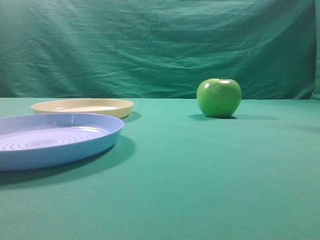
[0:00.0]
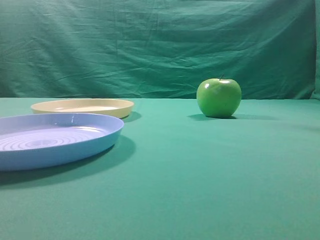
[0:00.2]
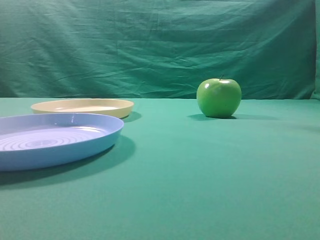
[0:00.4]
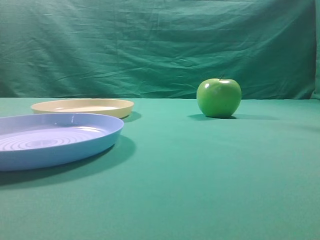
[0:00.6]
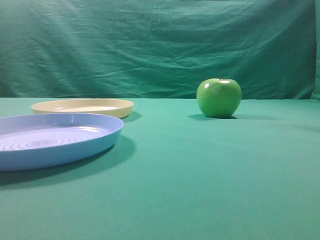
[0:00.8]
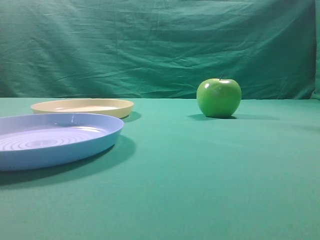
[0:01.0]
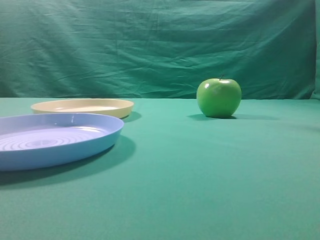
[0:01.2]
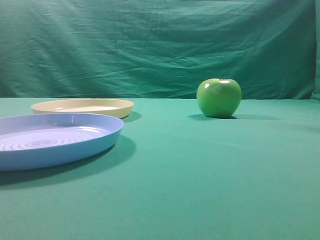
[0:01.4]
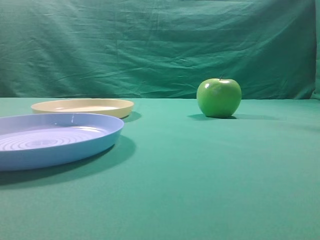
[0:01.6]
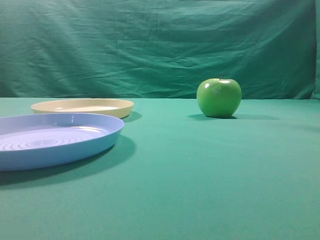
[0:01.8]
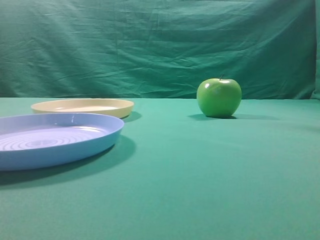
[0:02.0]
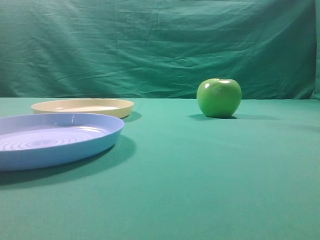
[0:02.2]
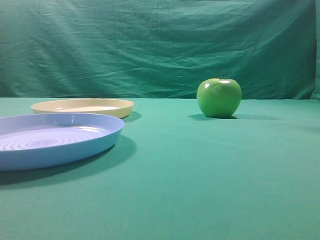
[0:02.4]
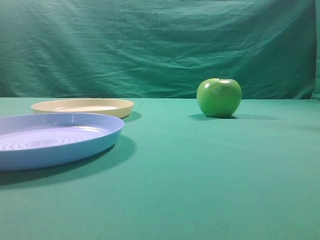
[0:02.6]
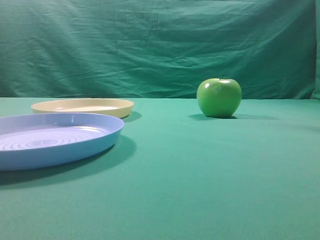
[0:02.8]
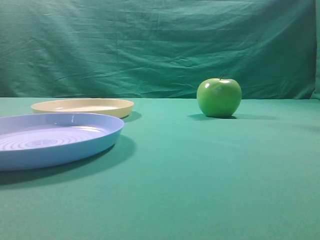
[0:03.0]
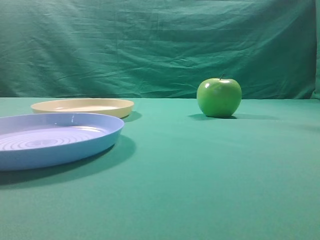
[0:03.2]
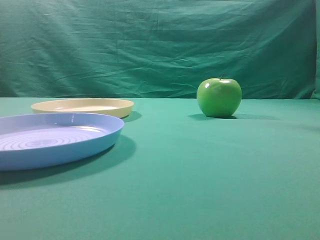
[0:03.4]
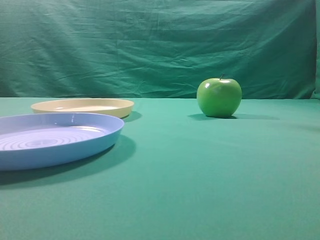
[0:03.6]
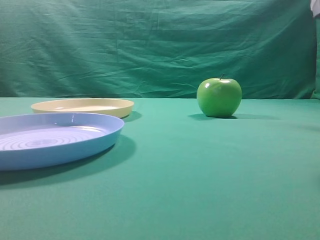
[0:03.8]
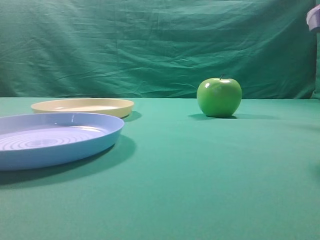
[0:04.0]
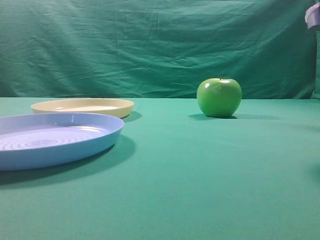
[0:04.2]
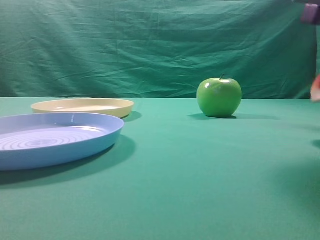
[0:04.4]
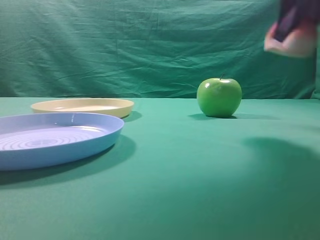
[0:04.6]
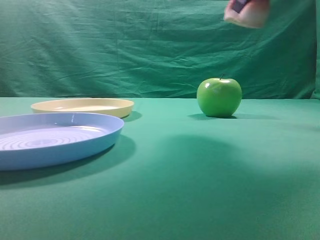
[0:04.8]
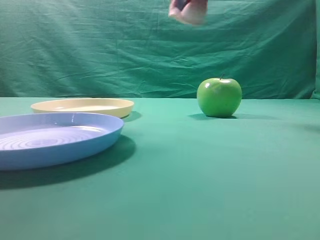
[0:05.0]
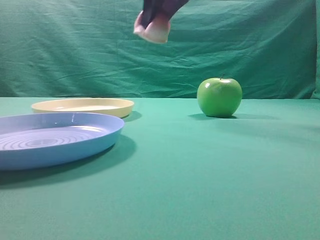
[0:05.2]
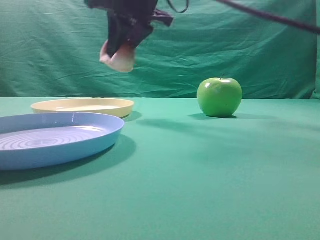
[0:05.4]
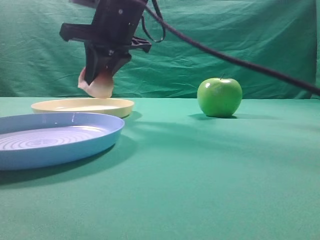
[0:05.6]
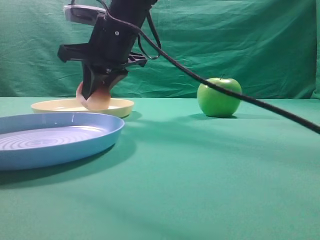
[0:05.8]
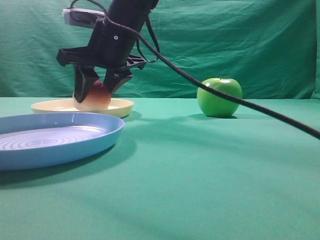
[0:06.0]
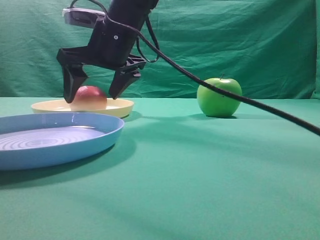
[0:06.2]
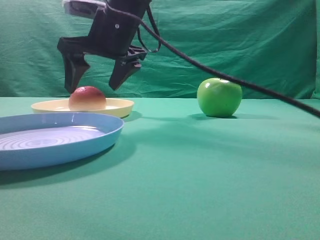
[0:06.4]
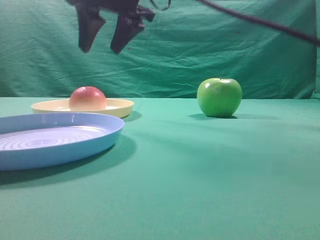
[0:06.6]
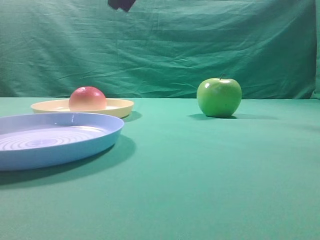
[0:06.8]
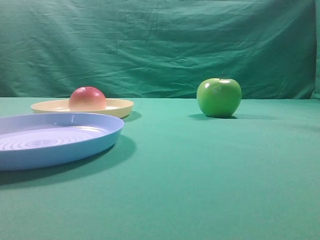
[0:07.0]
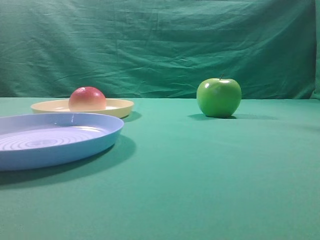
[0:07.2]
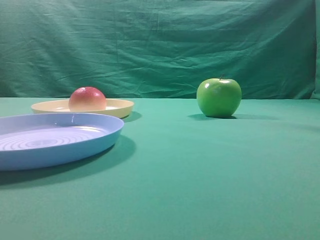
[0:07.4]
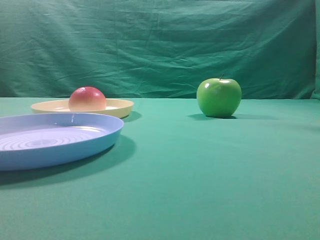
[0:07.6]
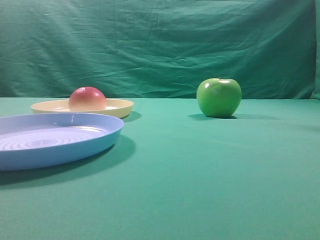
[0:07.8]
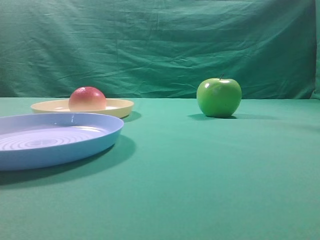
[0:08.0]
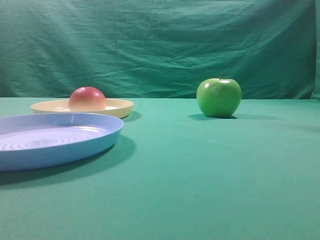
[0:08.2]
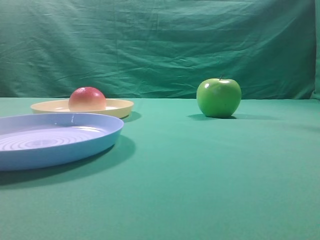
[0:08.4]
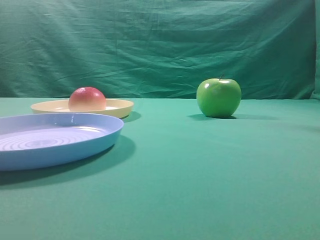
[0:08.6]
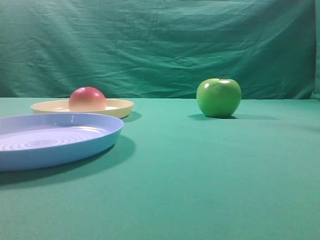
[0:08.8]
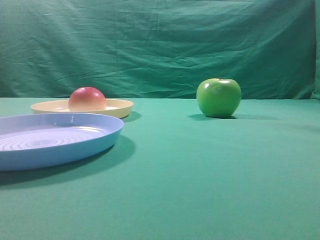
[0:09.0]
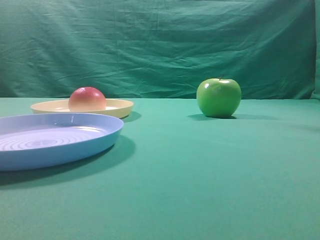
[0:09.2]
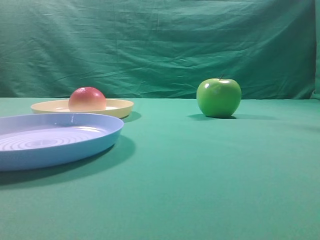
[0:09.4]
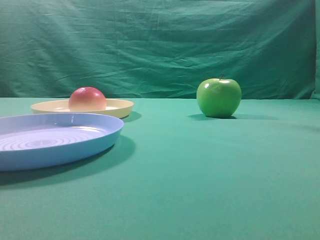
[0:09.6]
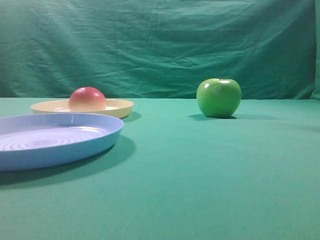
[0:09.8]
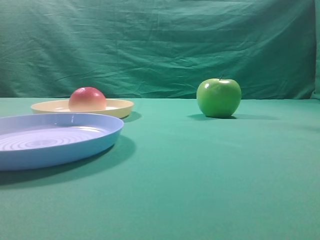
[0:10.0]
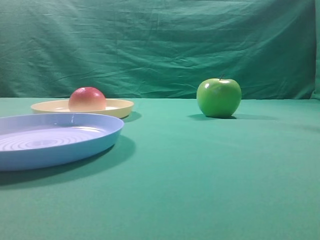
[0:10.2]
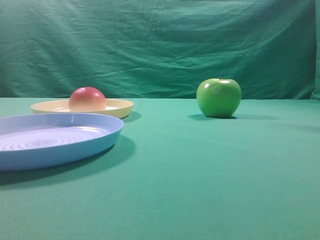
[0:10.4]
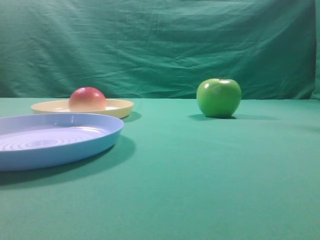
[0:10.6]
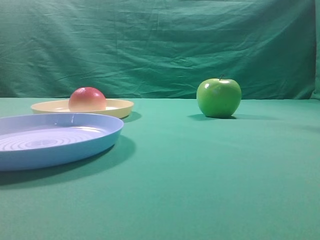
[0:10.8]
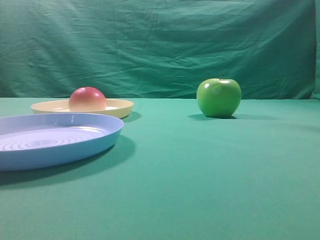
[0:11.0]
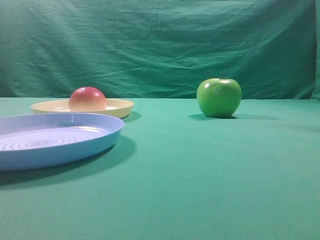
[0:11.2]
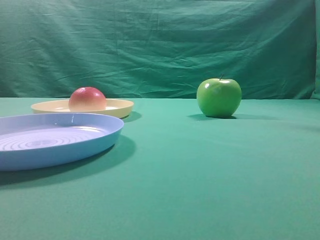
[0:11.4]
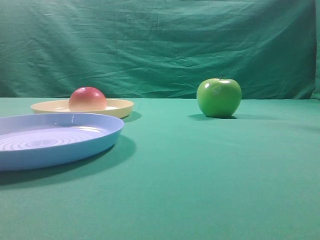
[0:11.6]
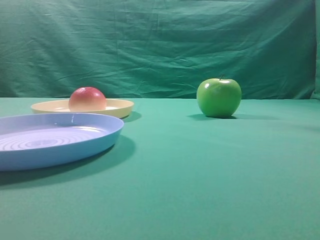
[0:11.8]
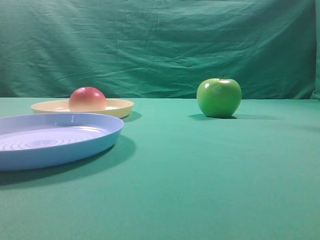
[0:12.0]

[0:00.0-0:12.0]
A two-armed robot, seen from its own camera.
Step, 0:04.6 to 0:06.4: Place the picked object on the yellow plate.
